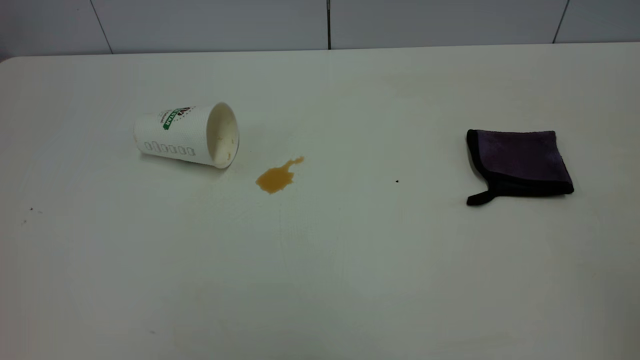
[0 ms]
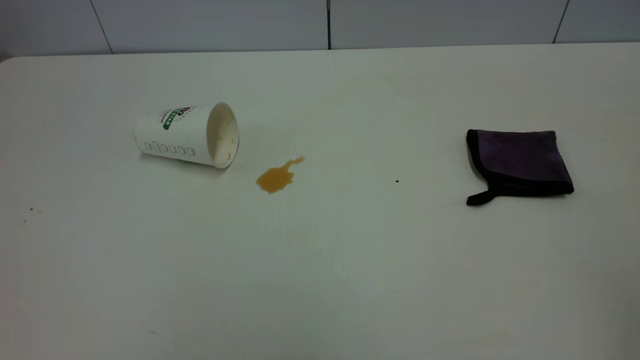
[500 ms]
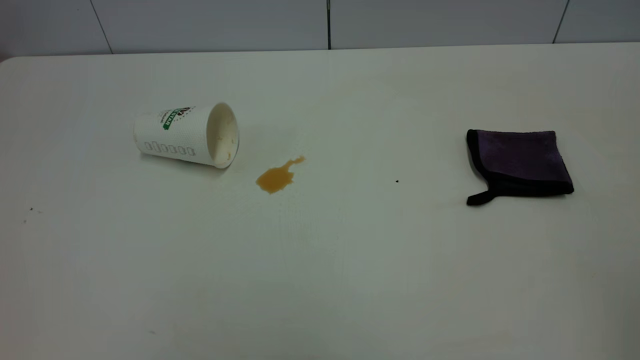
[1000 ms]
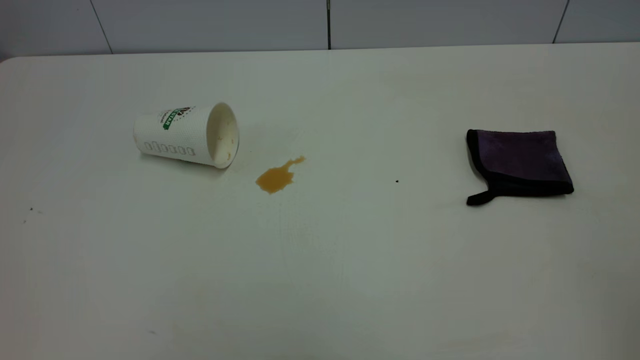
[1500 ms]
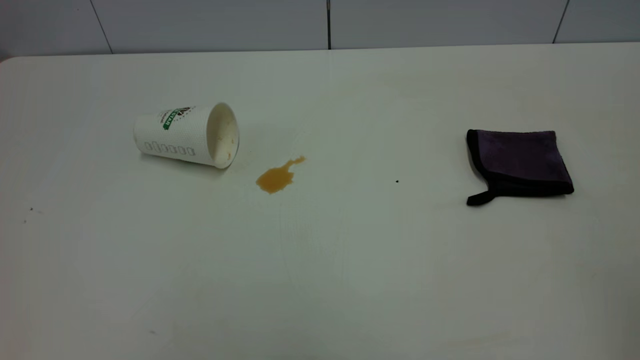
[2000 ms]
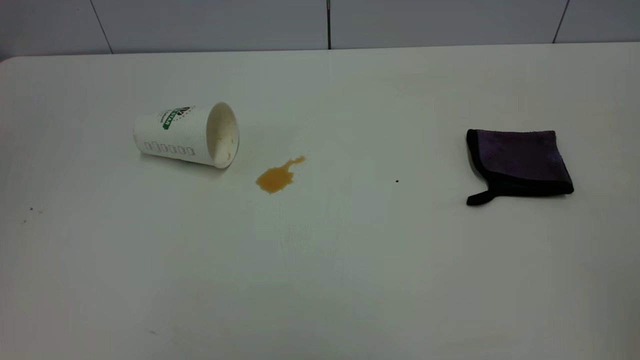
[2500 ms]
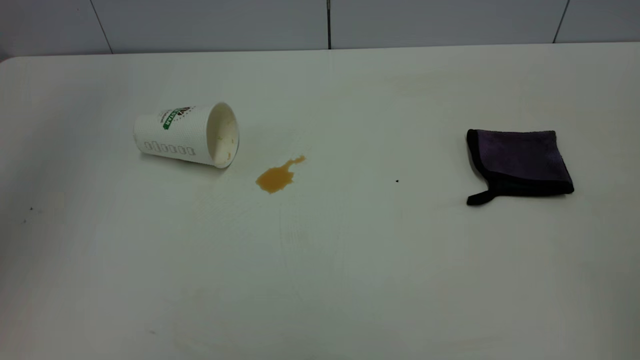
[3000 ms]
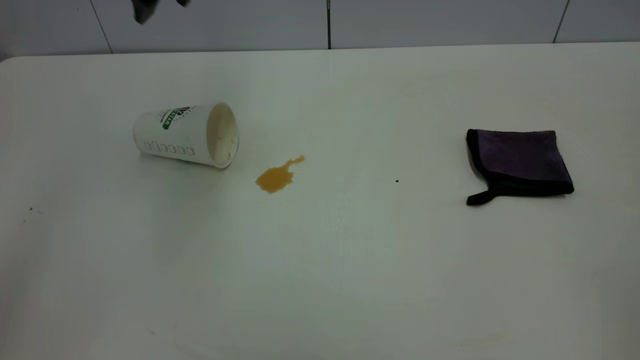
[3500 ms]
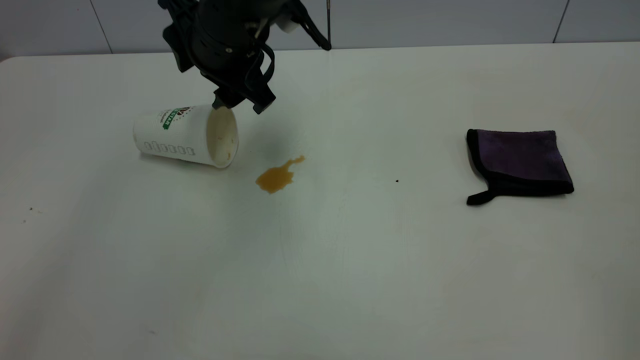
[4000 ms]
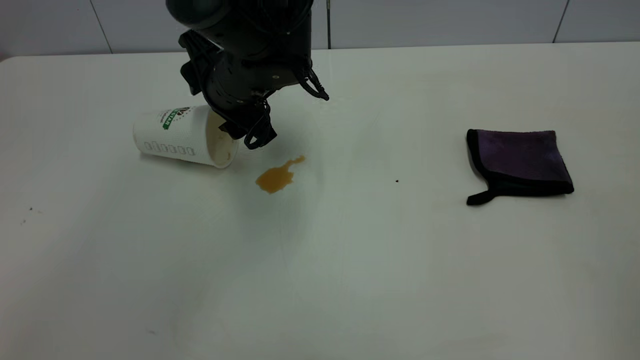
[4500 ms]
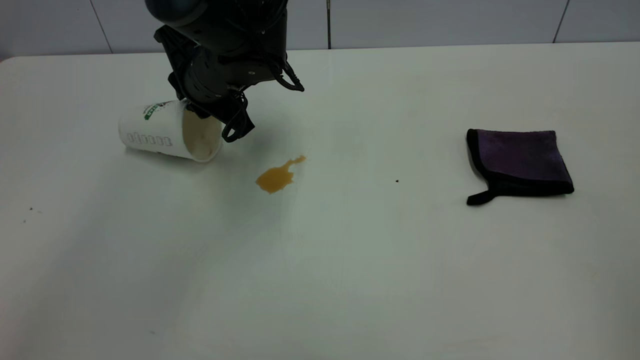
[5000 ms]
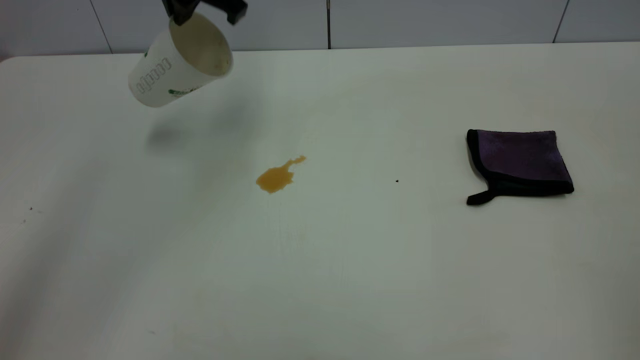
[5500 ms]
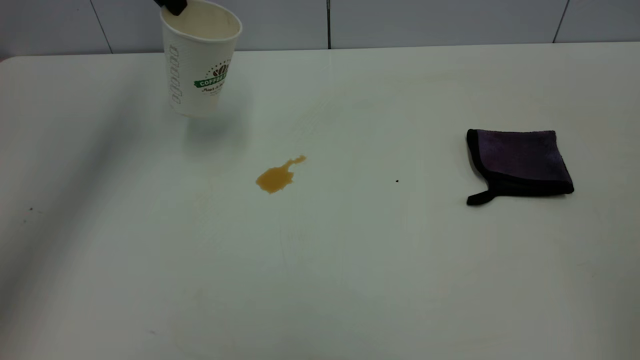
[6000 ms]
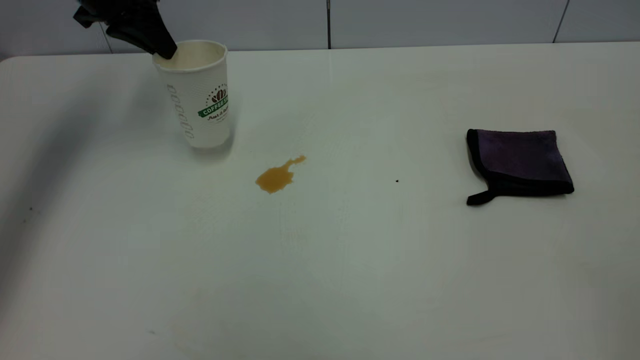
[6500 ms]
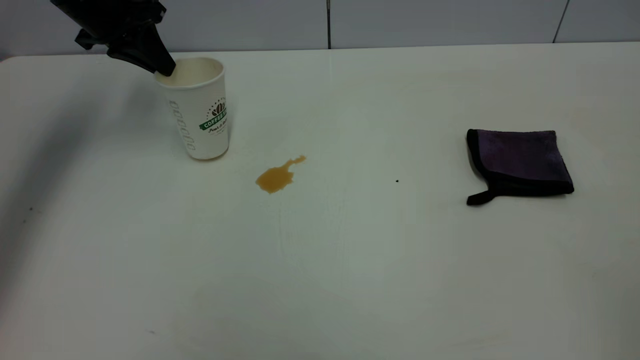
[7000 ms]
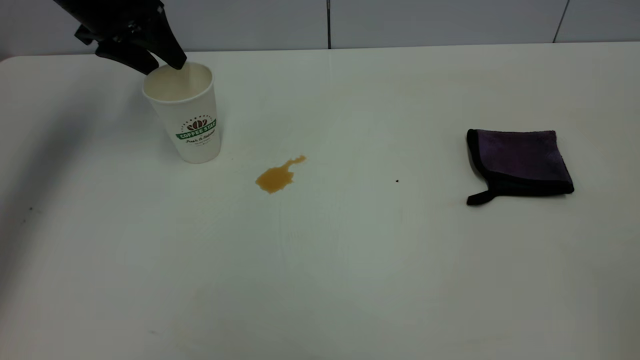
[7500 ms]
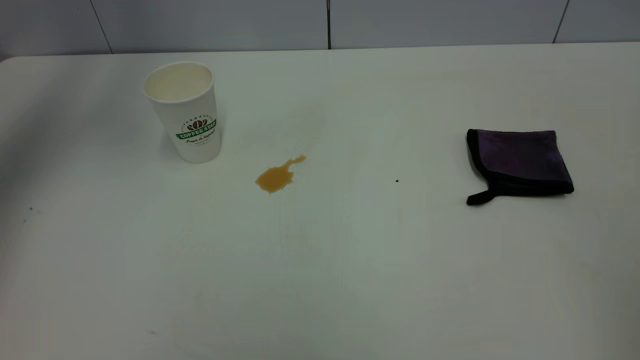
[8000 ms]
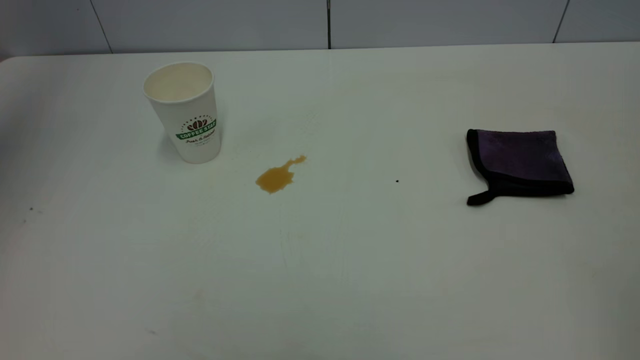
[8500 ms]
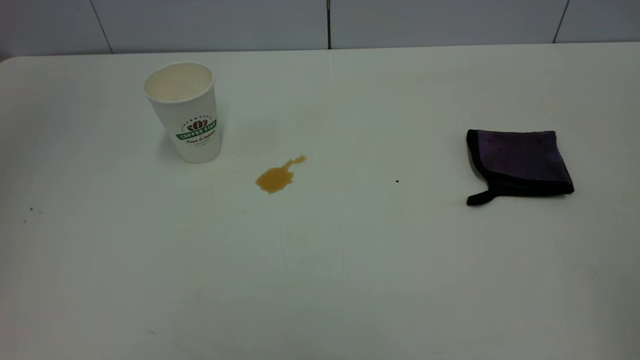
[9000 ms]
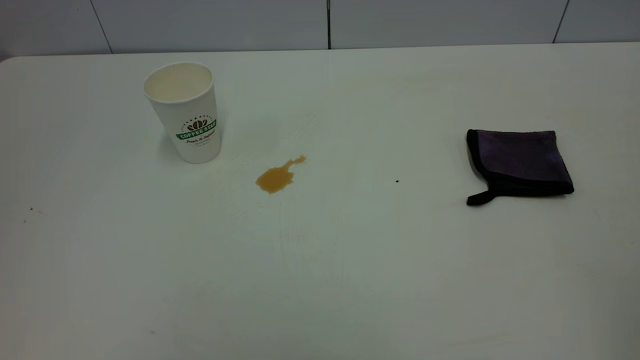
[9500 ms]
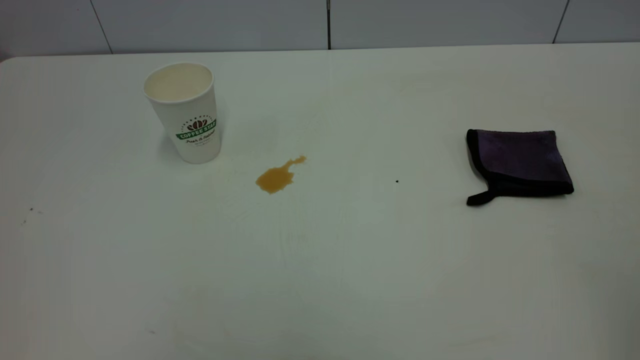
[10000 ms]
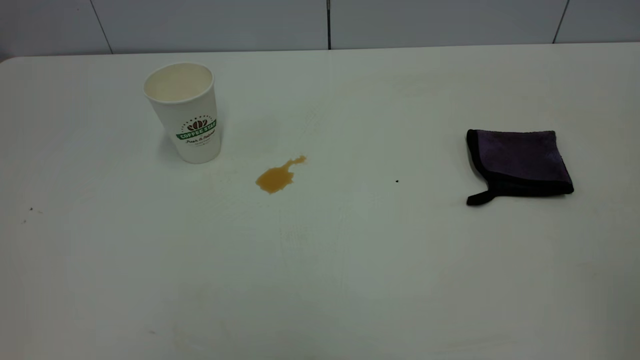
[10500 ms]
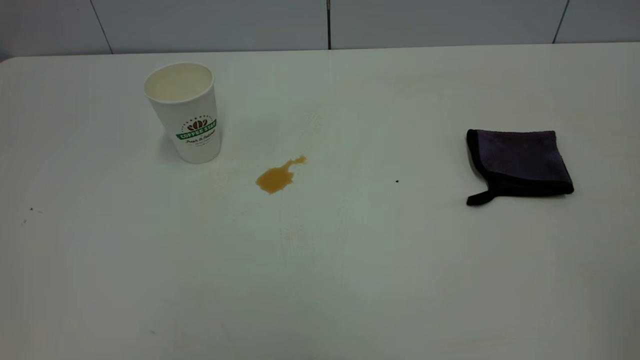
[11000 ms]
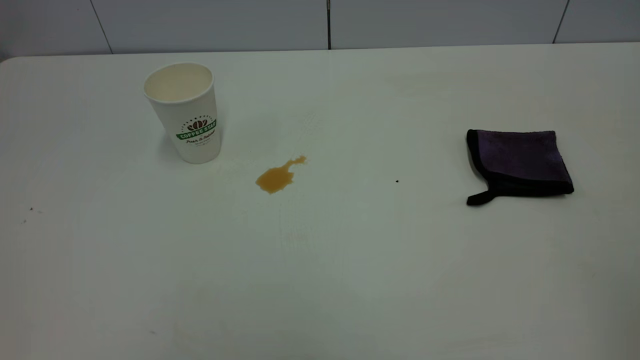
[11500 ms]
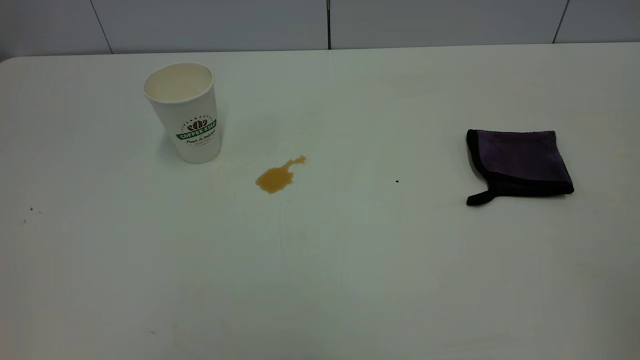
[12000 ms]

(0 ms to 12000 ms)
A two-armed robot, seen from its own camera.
Task of the whole recording: the left gripper pick up the fallen cup and place it upright, the right gripper grasp the purple rag and wipe the tea stain on the table, the right gripper put the purple rag back in its original position.
Step, 0 ms - 7500 ms: Stand the paper cup upright.
2000 ms - 4000 ms: The left gripper shifts some 50 cm forward, to the right and downward, and opens up.
4000 ms - 6000 ms: The left gripper moves to the left, upward and forward, roughly 20 cm, and closes its fingers.
6000 ms - 8000 ms: The left gripper goes about 15 cm upward and to the left, and opens its fingers.
8000 ms - 10000 ms: The left gripper goes roughly 40 cm backward.

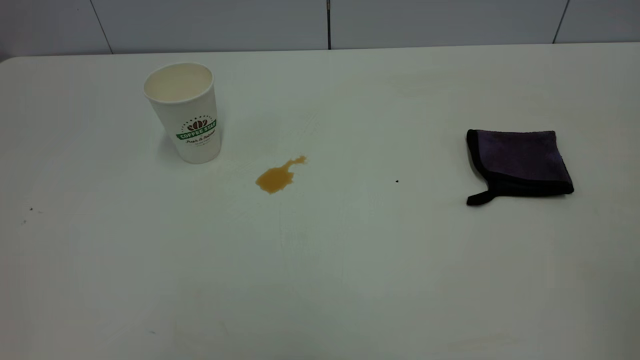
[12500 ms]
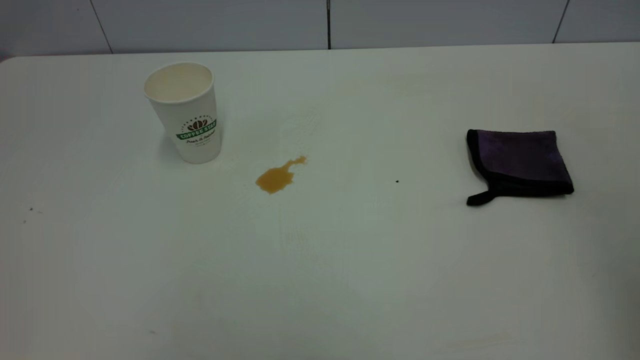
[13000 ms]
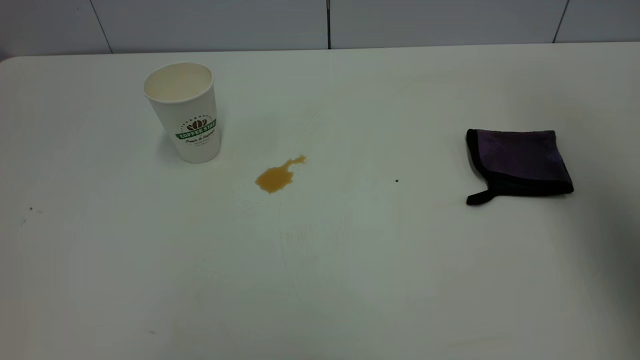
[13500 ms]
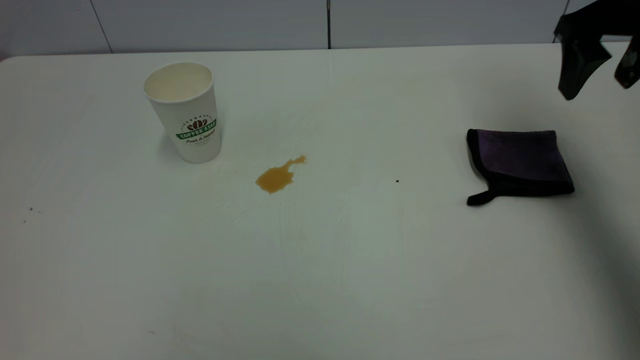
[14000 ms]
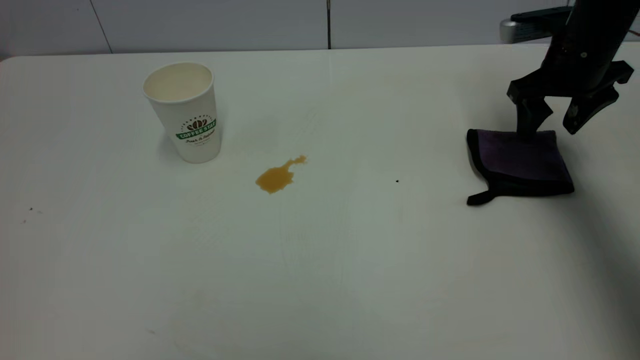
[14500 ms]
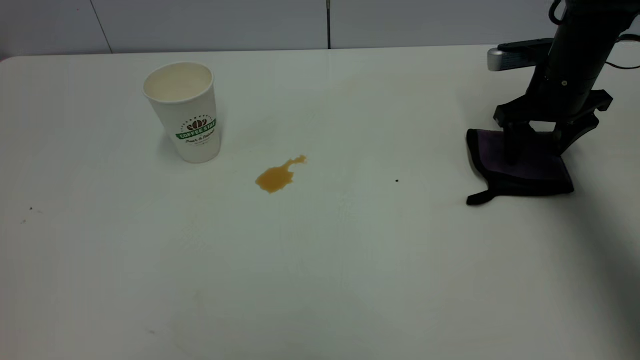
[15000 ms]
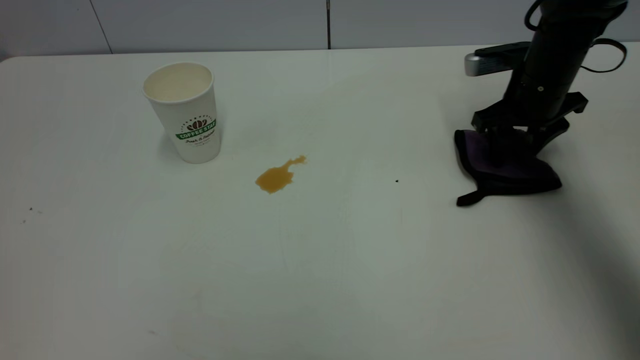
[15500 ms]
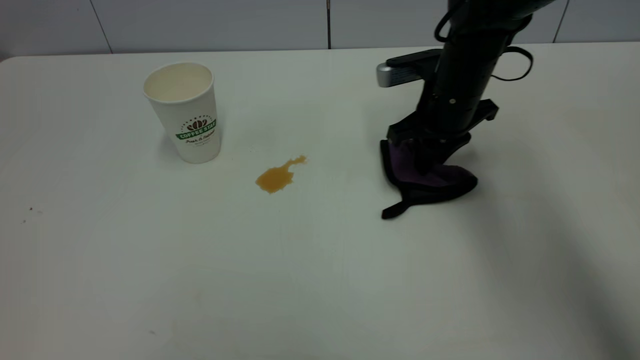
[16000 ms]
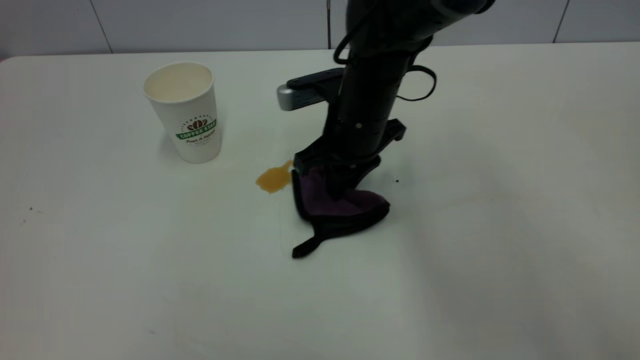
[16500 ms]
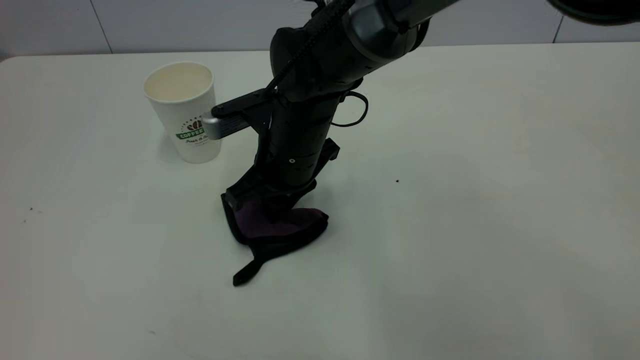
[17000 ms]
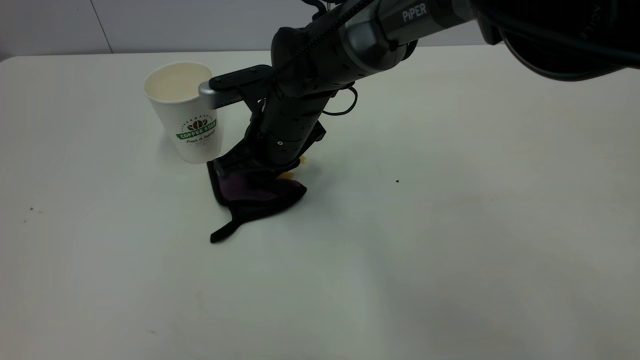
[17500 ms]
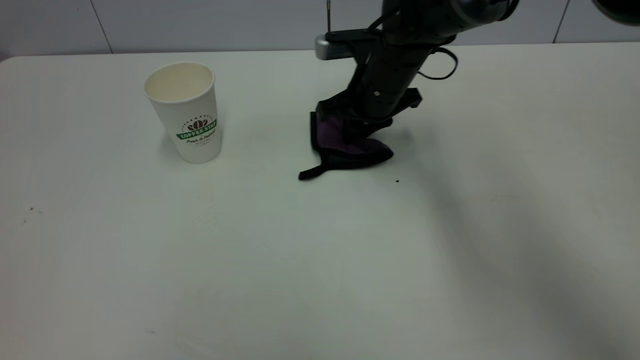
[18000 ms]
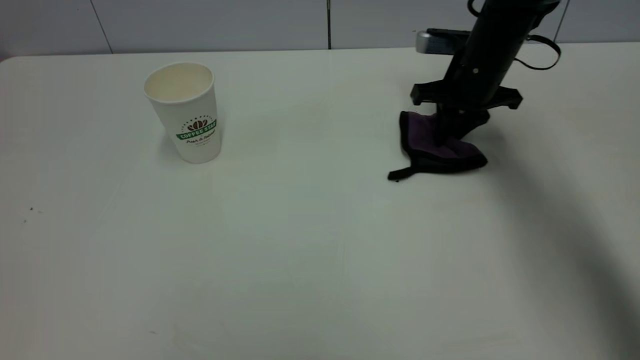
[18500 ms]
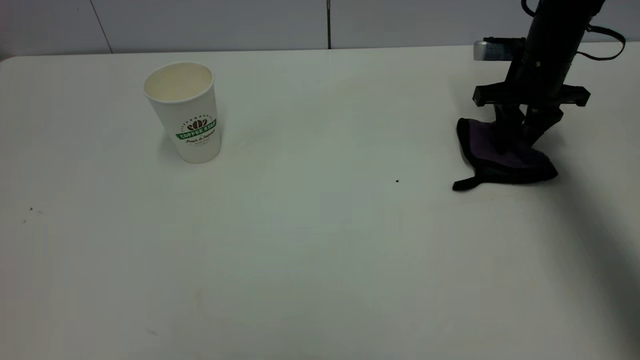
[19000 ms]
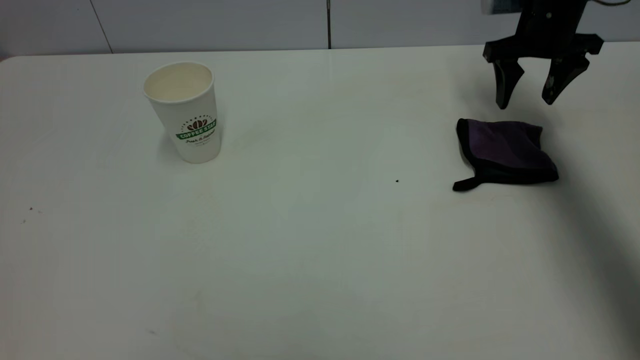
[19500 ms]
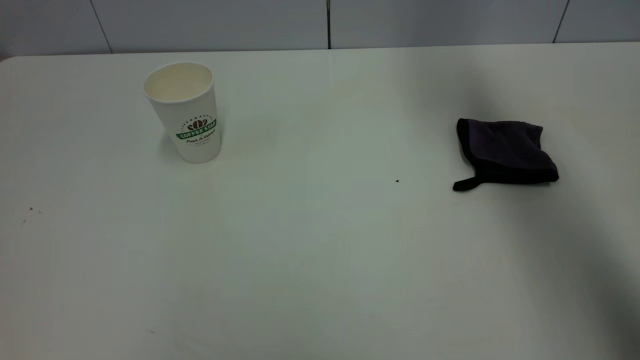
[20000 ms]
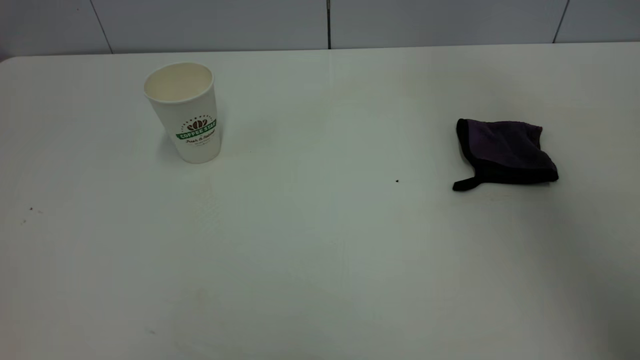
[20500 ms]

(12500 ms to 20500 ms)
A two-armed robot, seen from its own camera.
Task of the whole recording: the left gripper pick up the fallen cup and place it upright, the right gripper grasp the purple rag and wipe the tea stain on the table, the right gripper put the purple rag back in its original position.
Step, 12500 ms - 19500 ms: Wipe the stains off the table with a rag.
12500 ms - 14500 ms: The right gripper travels forward and downward by some 50 cm, and opens up.
14500 ms - 16500 ms: The right gripper heads to the left, covering approximately 25 cm, and closes up.
16500 ms - 18500 ms: The right gripper shifts some 20 cm to the right and forward.
18500 ms - 20500 ms: The right gripper is displaced upward and backward by some 40 cm, and opens up.
